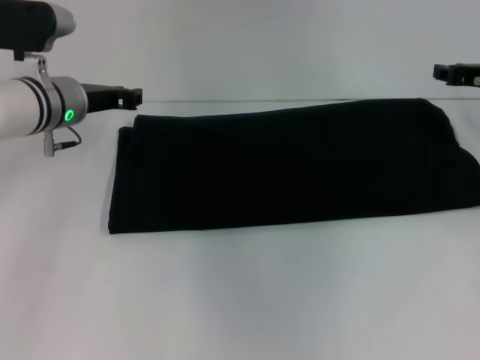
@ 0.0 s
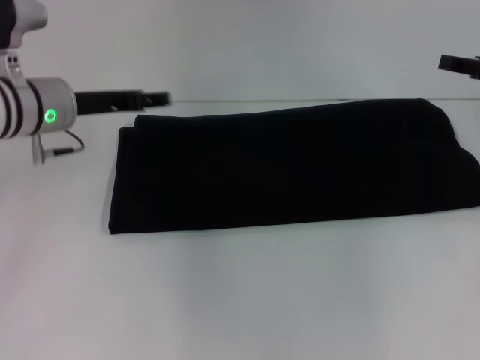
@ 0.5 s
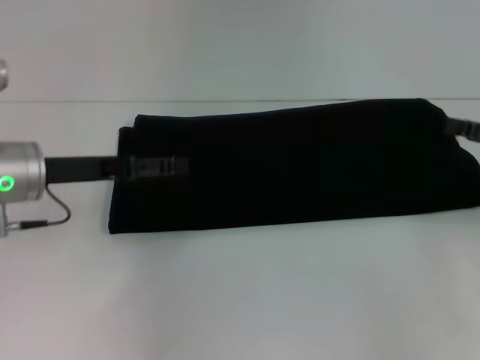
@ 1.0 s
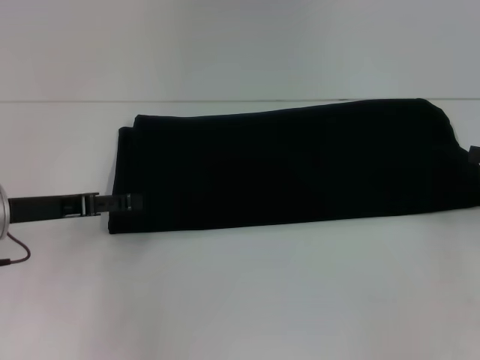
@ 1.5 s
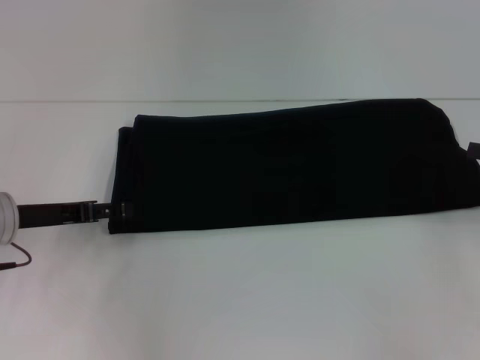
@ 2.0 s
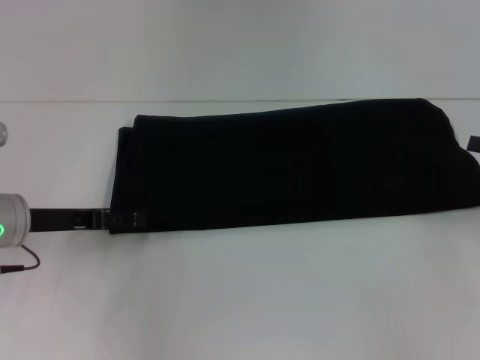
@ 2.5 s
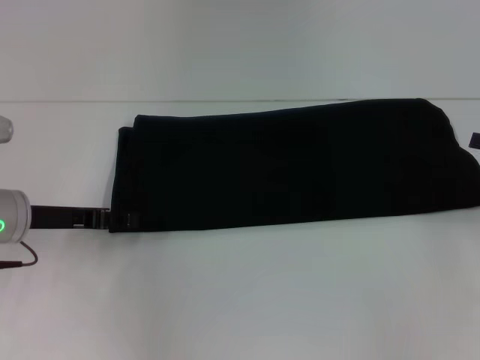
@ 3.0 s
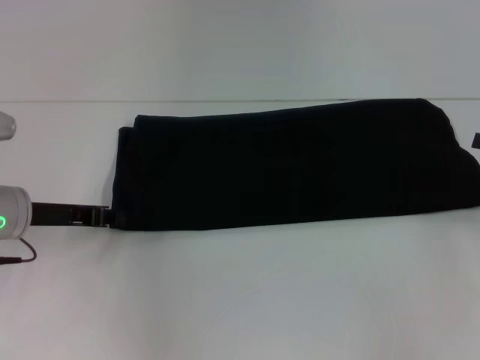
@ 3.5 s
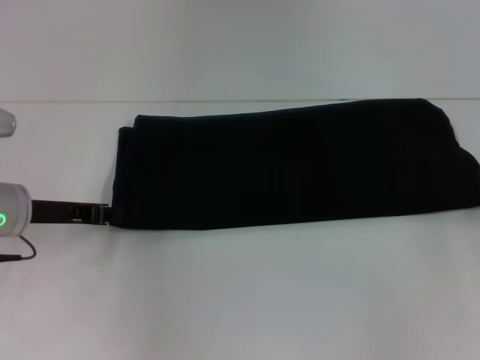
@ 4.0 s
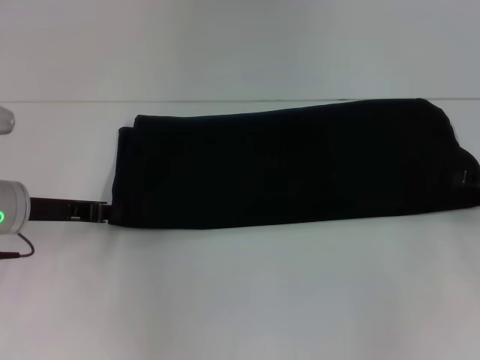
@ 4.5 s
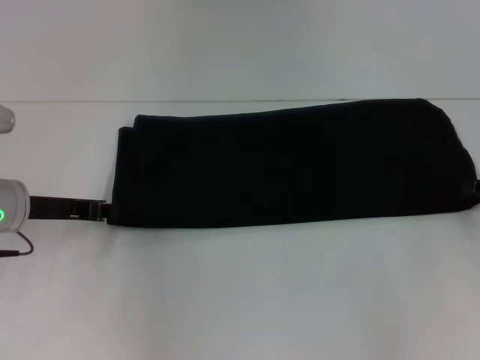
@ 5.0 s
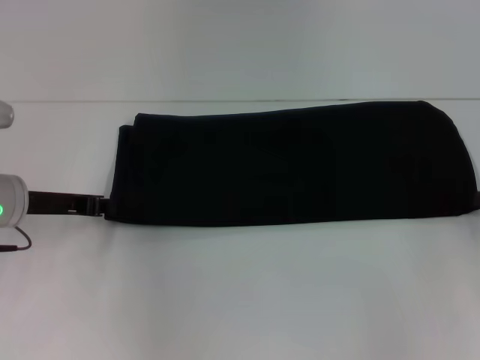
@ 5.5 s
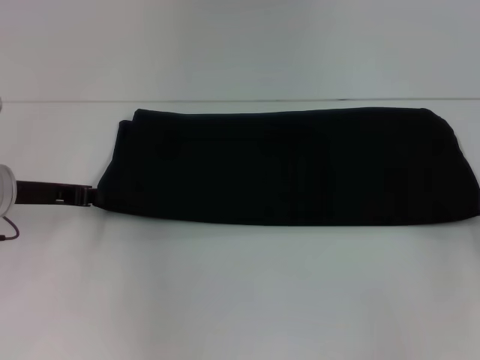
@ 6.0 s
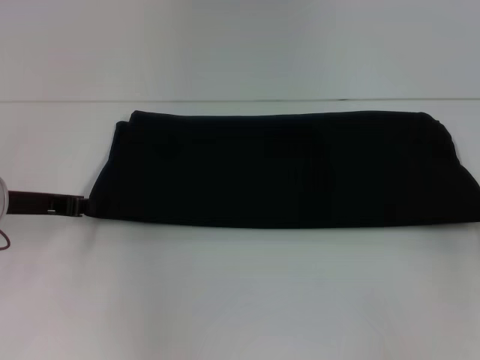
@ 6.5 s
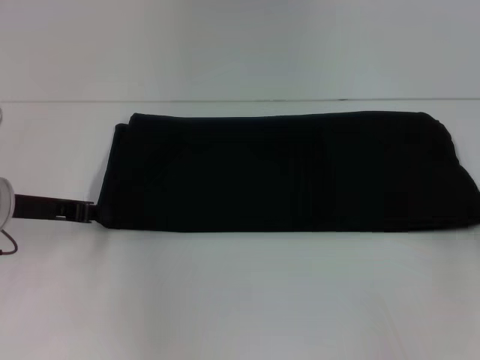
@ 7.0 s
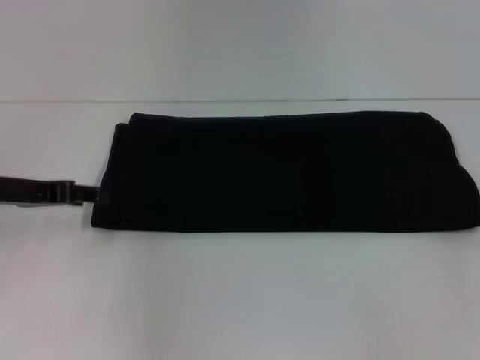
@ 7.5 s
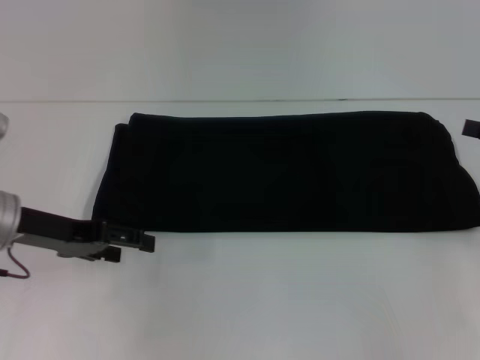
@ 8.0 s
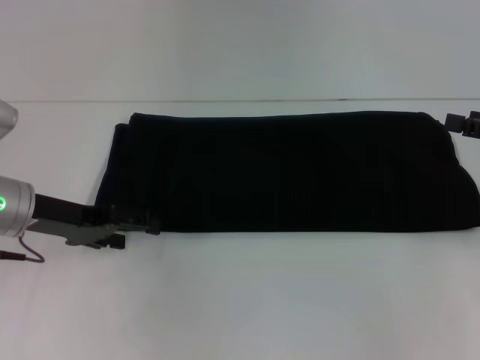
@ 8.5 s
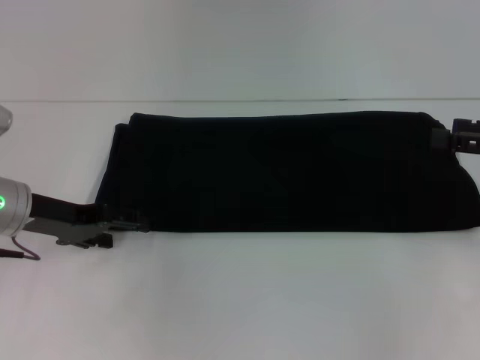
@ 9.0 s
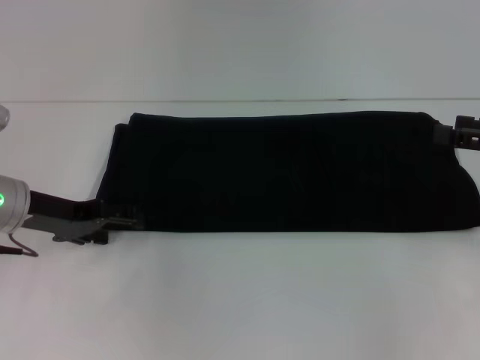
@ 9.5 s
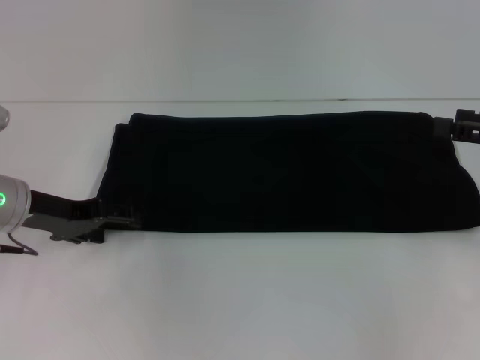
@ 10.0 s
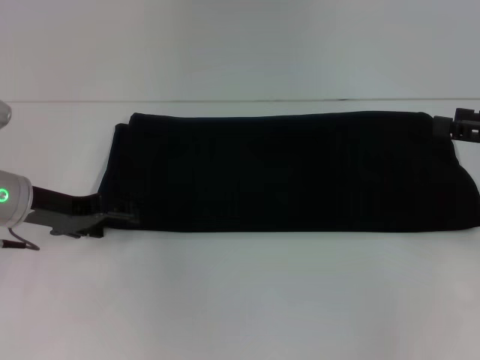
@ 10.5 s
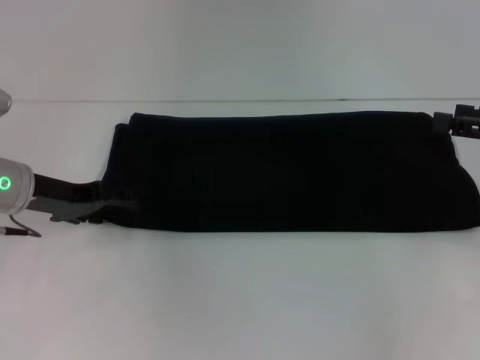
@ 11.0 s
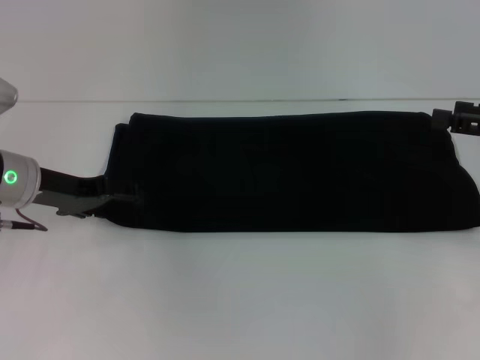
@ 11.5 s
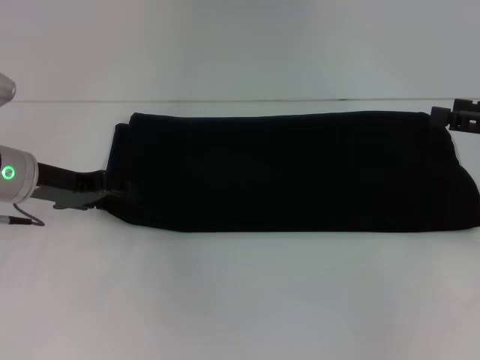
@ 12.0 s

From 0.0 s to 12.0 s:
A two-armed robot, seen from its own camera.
From 0.0 s to 2.0 s: The right gripper goes approximately 15 cm backward and to the right, and opens; the left gripper moves backward and to the left, roughly 15 cm, and opens up.
From 2.0 s to 4.0 s: The left gripper closes.
From 4.0 s to 6.0 s: The right gripper closes its fingers.
From 6.0 s to 8.0 s: The right gripper goes approximately 5 cm upward, and opens. Meanwhile the left gripper opens.
From 8.0 s to 12.0 s: The grippers stay close to where they were, moving slightly.

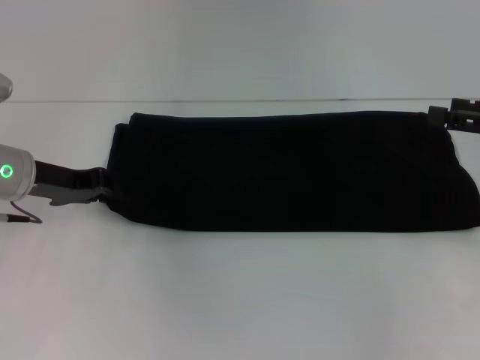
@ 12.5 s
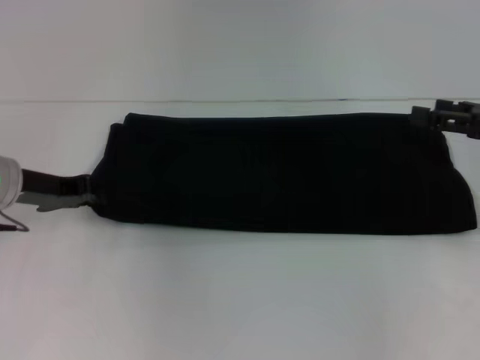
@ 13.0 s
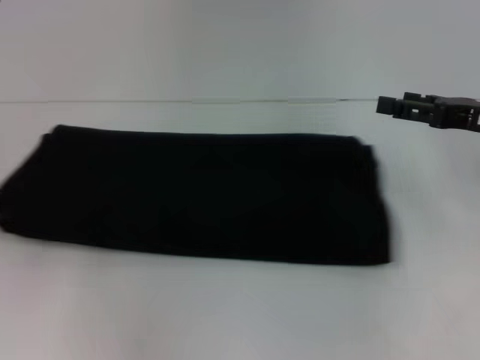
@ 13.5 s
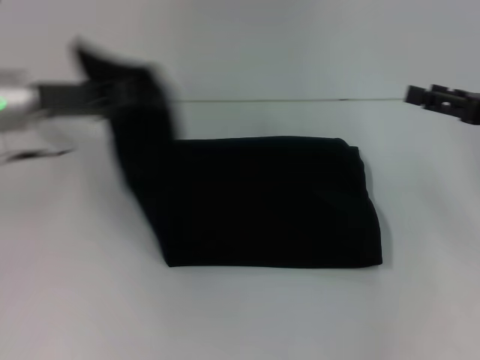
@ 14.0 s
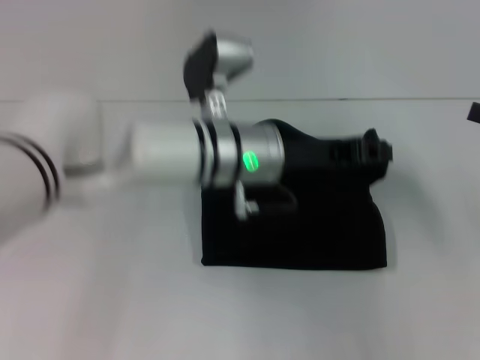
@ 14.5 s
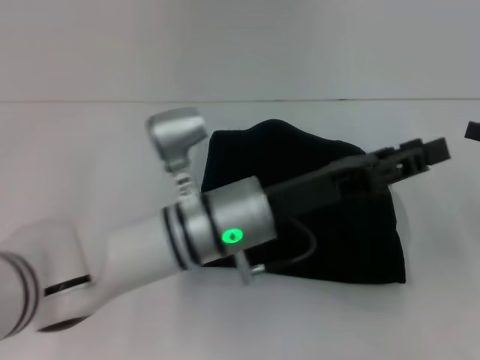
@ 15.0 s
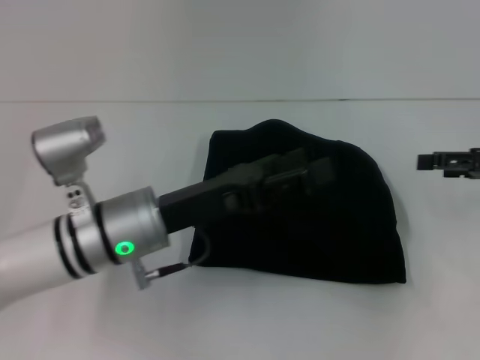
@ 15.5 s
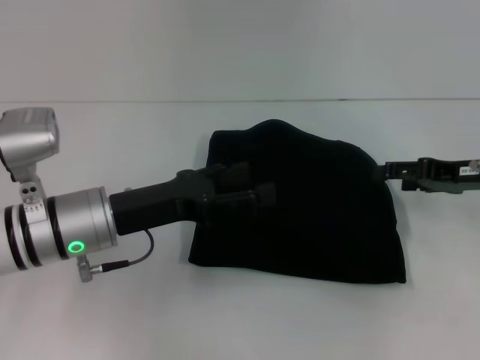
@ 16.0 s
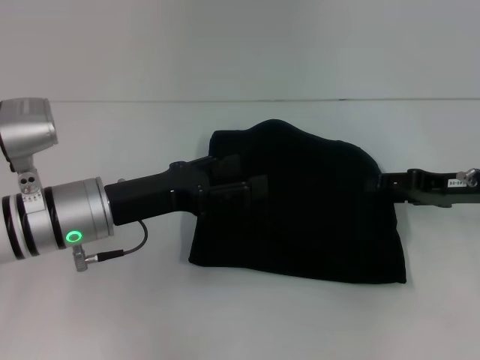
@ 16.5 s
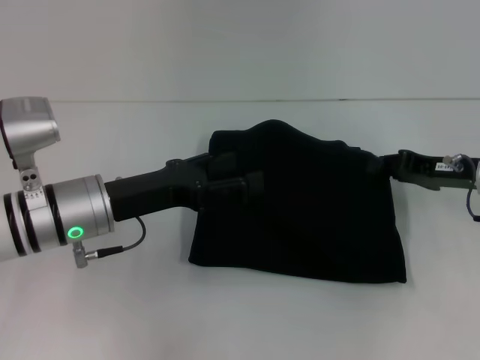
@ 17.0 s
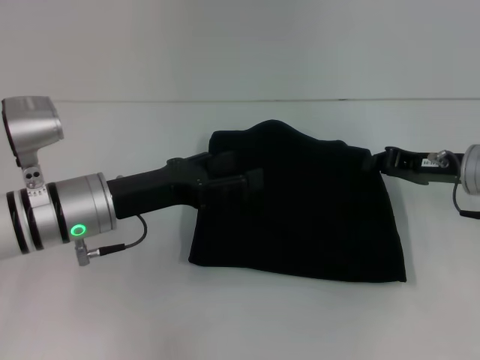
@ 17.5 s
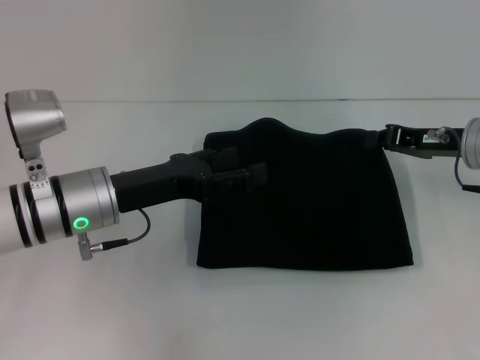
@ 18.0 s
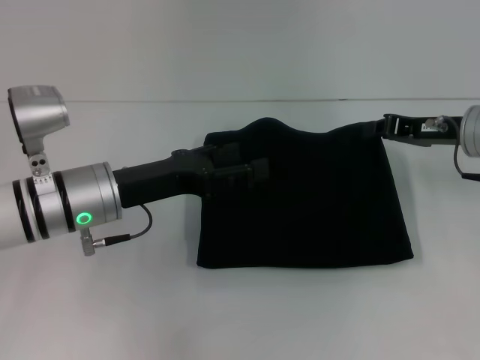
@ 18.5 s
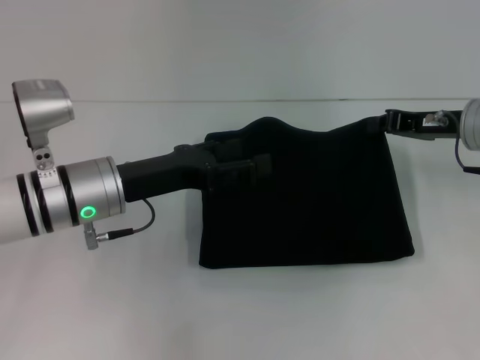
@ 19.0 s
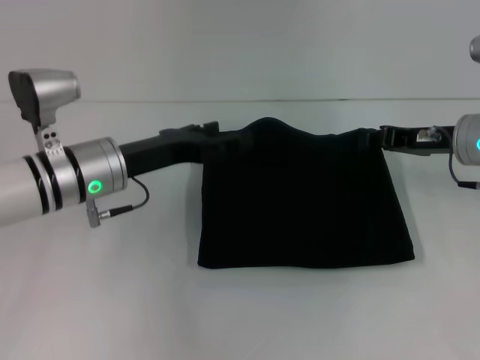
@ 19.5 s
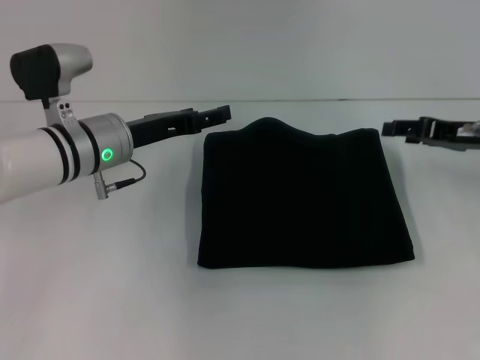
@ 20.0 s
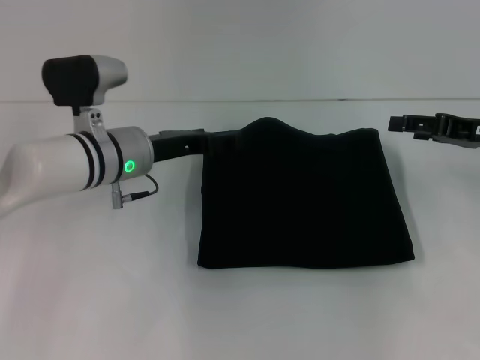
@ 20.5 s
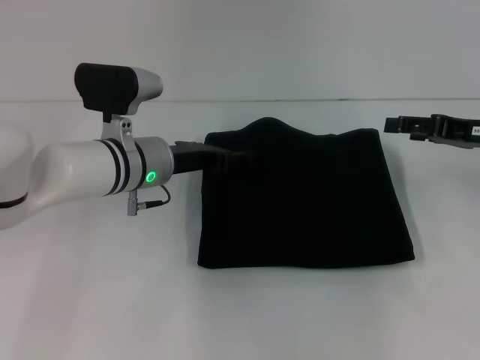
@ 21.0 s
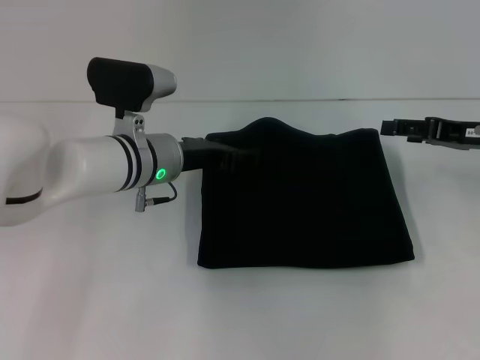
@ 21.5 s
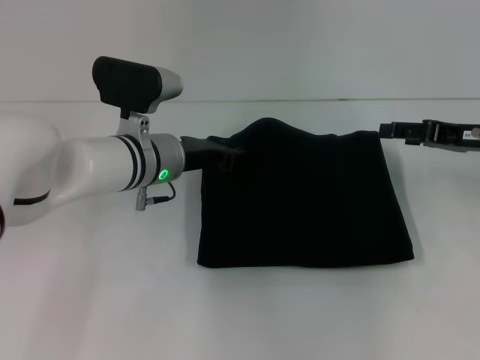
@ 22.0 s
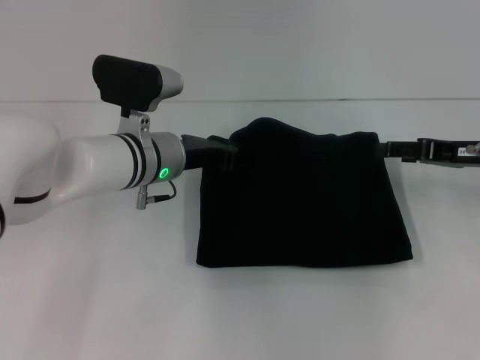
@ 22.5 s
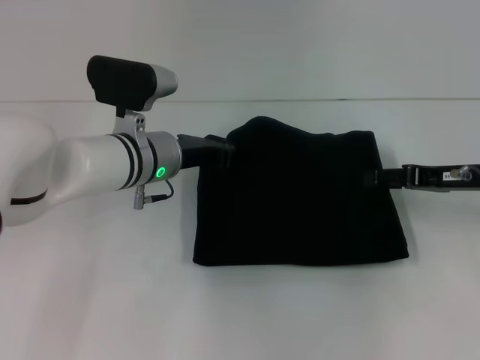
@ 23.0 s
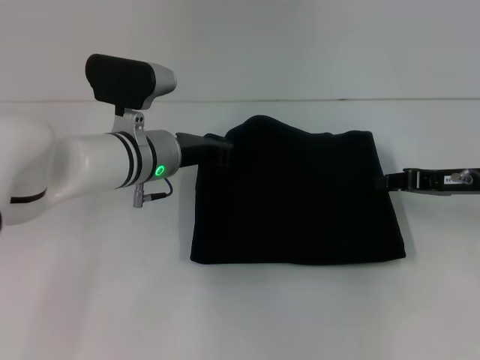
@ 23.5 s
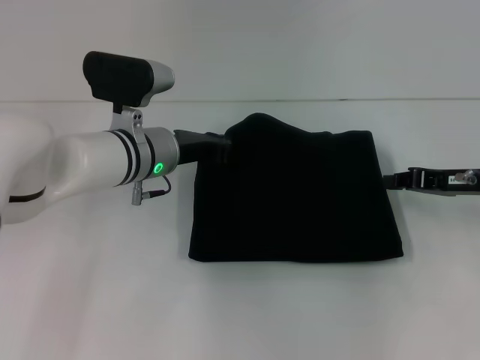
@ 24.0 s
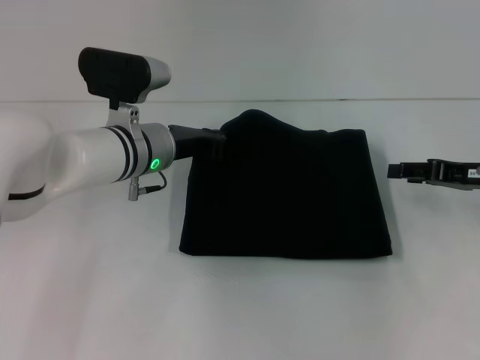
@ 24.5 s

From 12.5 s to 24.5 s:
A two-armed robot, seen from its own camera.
Step, from 12.5 s to 15.0 s: Fold the clothes with your left hand.
From 12.5 s to 14.5 s: The left gripper travels to the right by about 25 cm, and closes its fingers.
From 14.5 s to 16.5 s: The left gripper is displaced to the left and backward by about 15 cm, and opens up. The right gripper shifts about 10 cm to the left, downward and forward.
From 16.5 s to 18.5 s: The right gripper moves some 5 cm, and closes.
From 18.5 s to 20.5 s: The right gripper moves to the right, some 5 cm, and opens, while the left gripper moves forward, some 5 cm.
From 20.5 s to 22.5 s: The left gripper closes up.
From 22.5 s to 24.5 s: The right gripper closes its fingers.

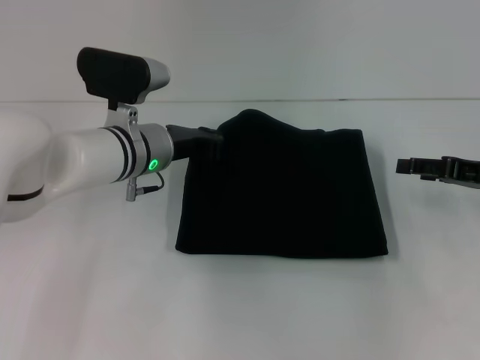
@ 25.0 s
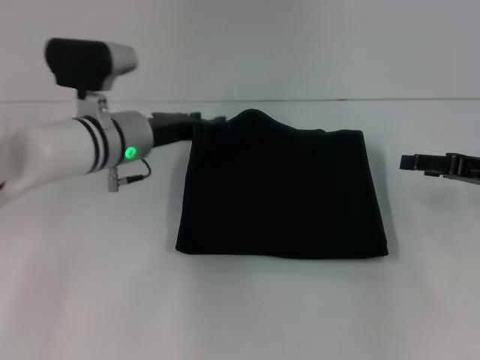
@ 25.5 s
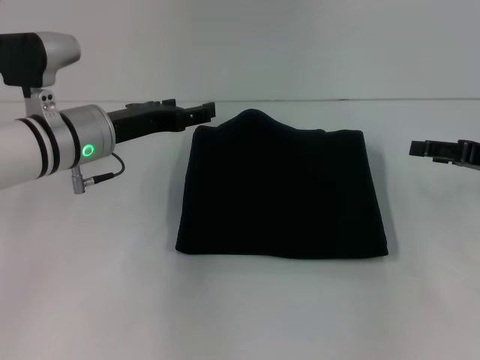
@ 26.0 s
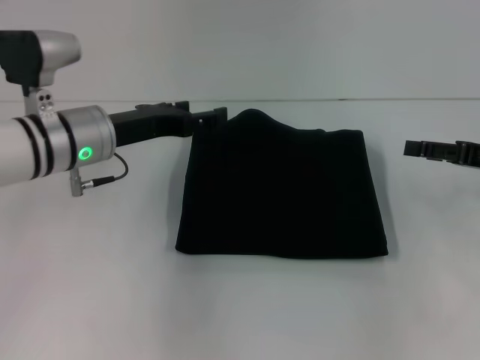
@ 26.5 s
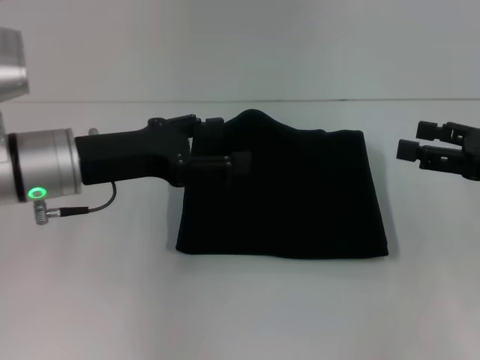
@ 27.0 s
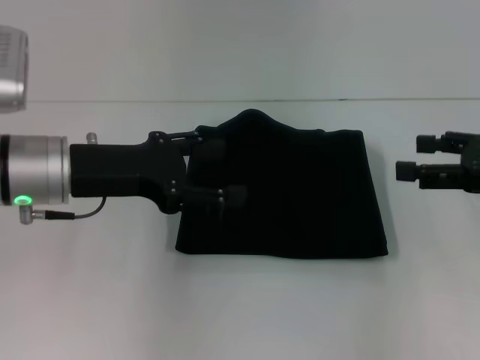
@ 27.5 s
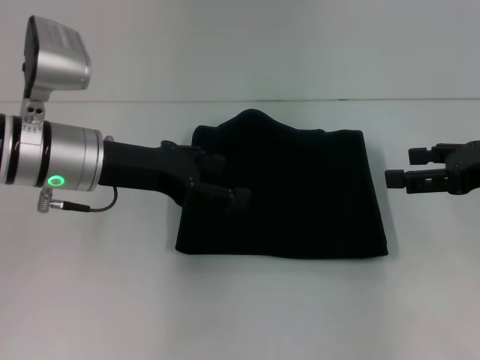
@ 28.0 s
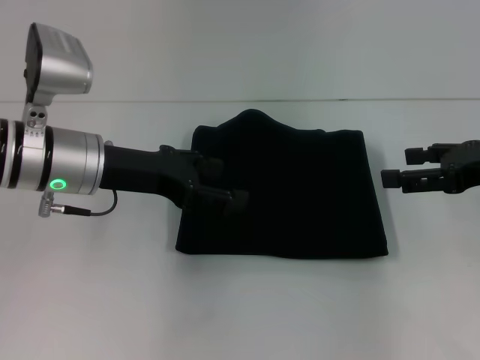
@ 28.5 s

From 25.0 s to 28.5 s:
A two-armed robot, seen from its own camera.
From 25.0 s to 27.0 s: The right gripper ends up roughly 5 cm from where it was. The left gripper goes about 15 cm backward, to the left and upward, and opens.
From 27.0 s to 28.5 s: The grippers stay close to where they were, moving slightly.
